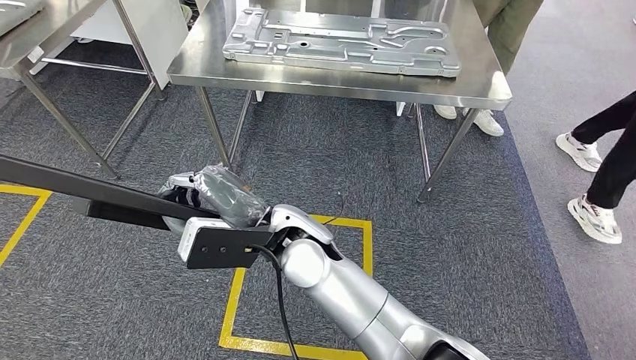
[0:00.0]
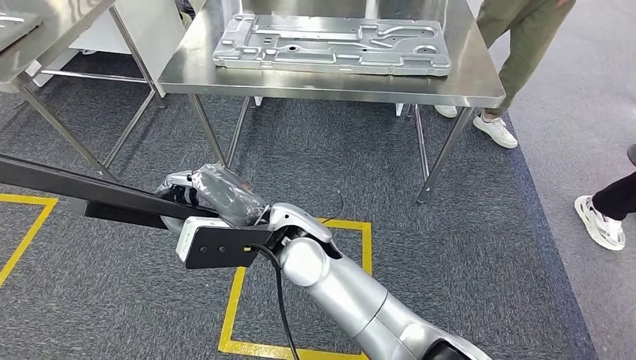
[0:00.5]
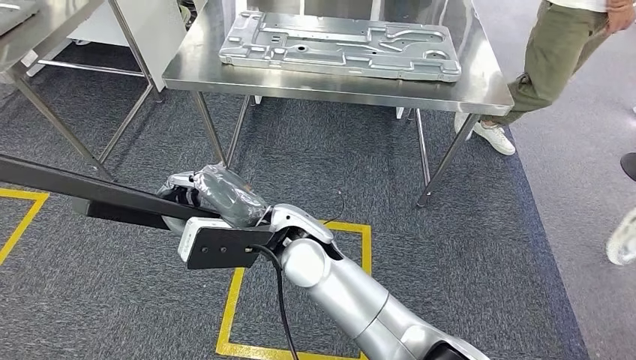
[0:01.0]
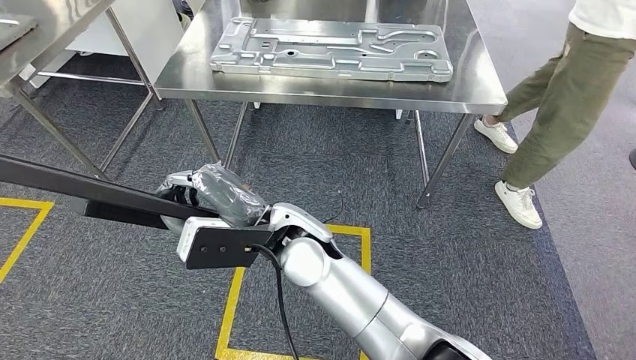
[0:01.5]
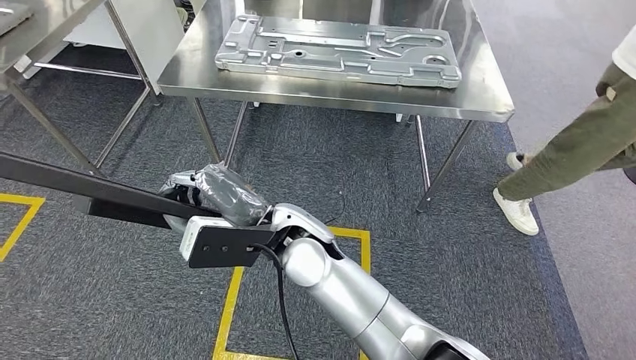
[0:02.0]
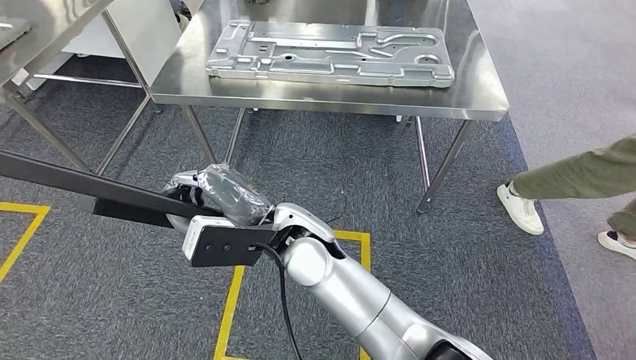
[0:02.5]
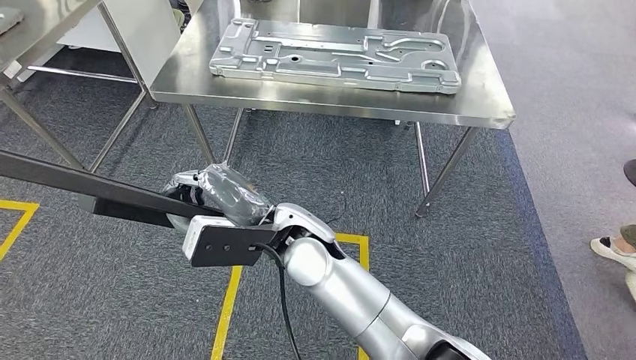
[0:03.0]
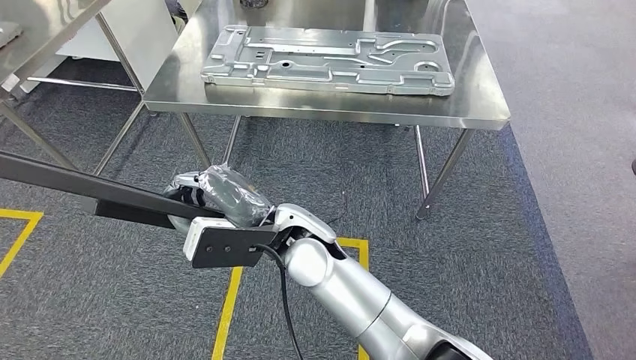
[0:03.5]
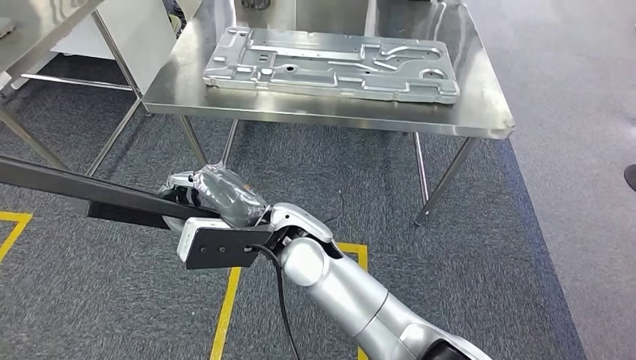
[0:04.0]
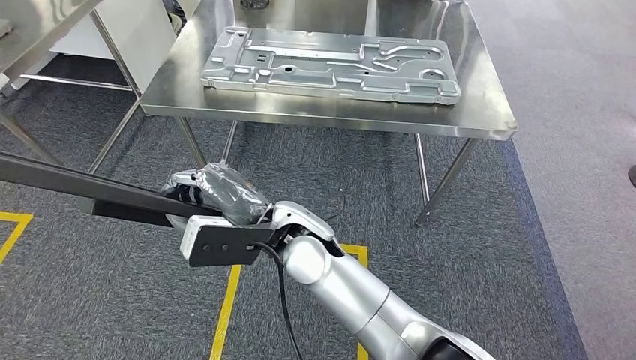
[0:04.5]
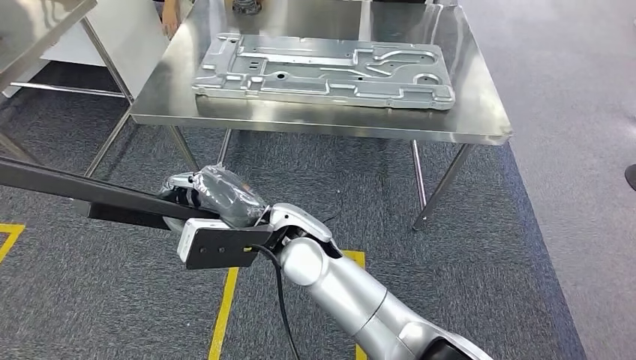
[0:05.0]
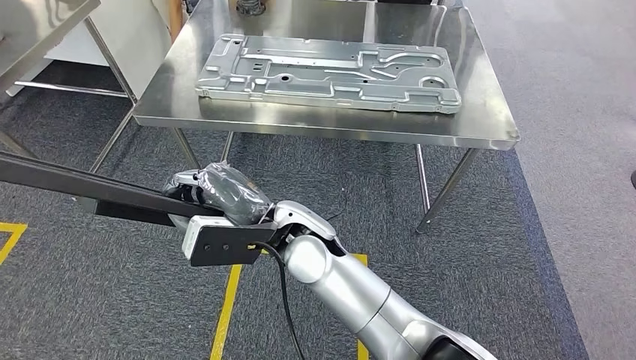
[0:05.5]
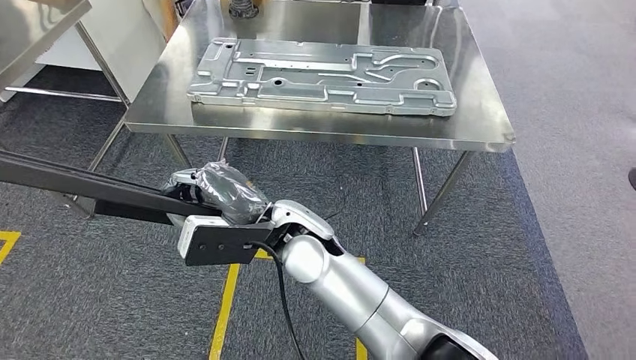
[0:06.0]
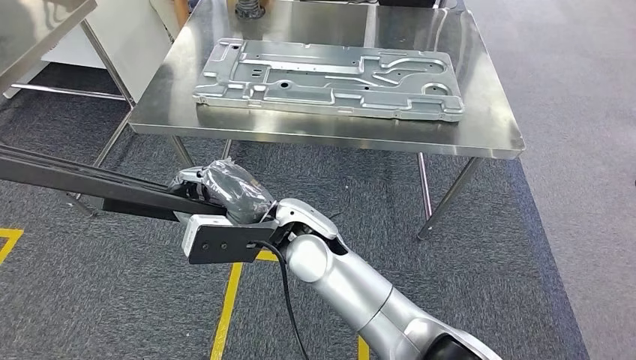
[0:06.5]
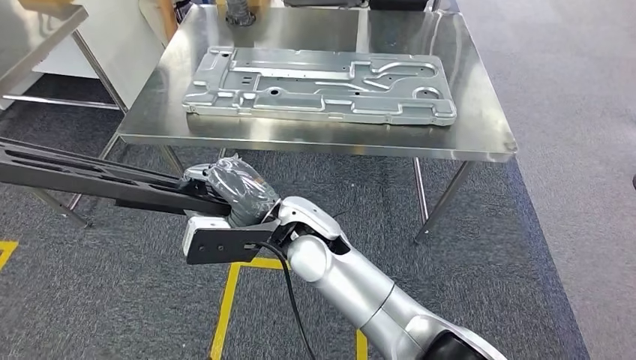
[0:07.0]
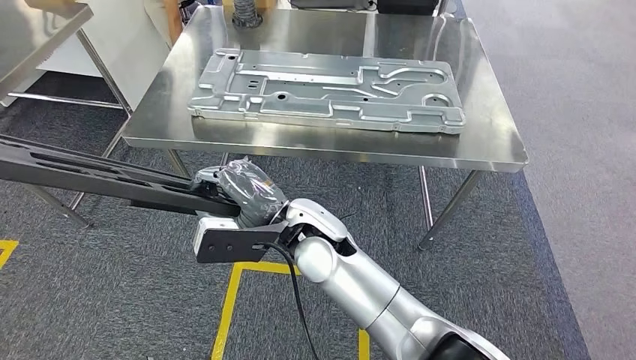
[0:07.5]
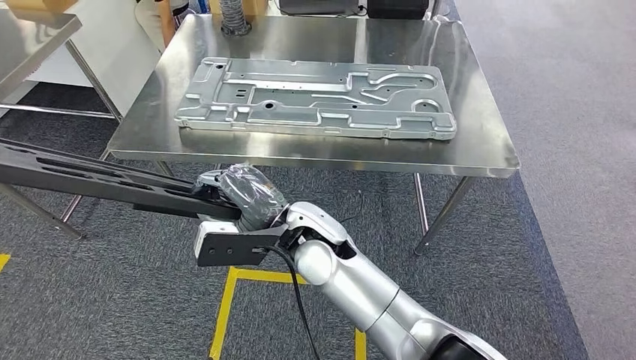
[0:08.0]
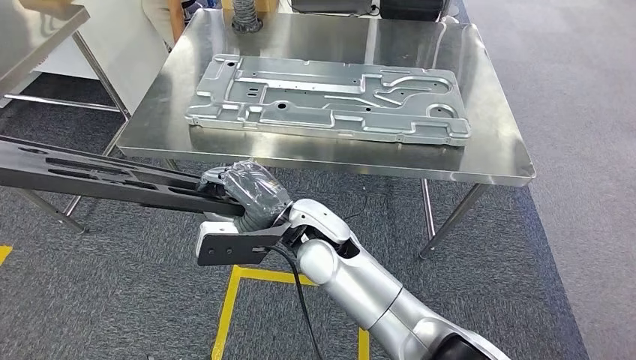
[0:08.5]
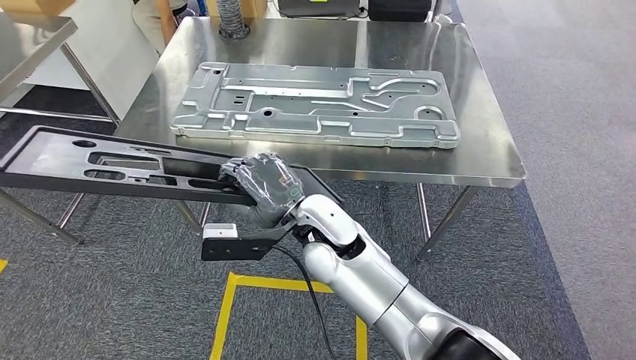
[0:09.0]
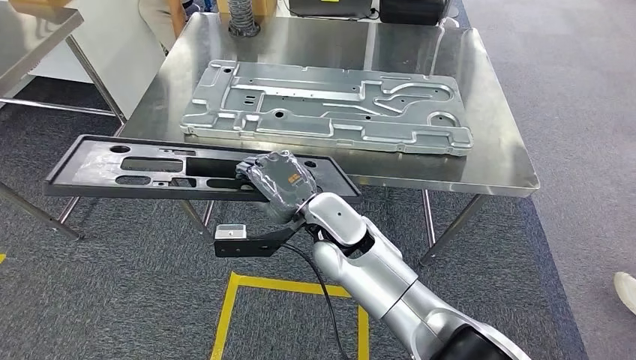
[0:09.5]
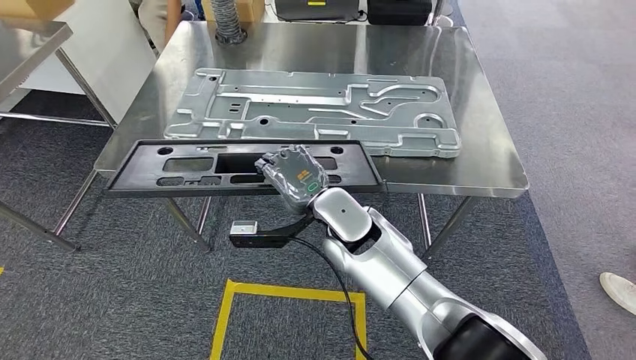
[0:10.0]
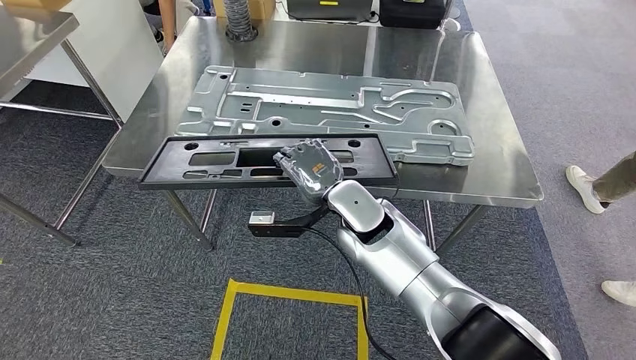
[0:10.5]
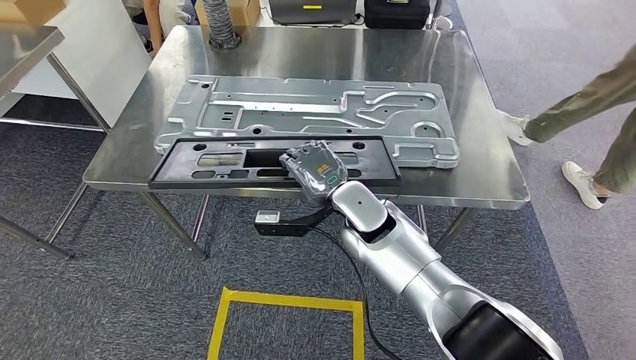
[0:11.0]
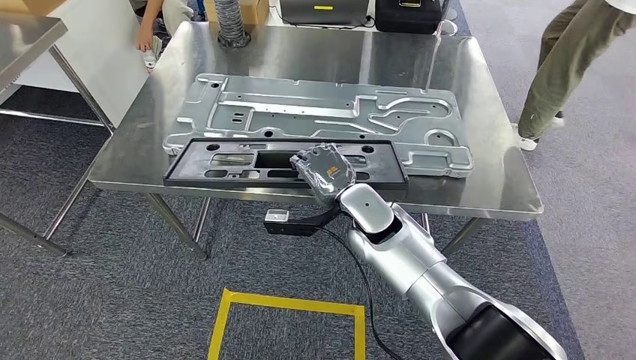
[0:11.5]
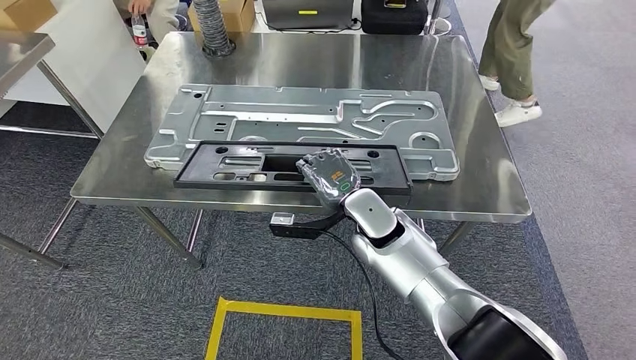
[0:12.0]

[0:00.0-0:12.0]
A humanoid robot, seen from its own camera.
Step, 0:00.0 to 0:07.0: Move the large material to the workbench.

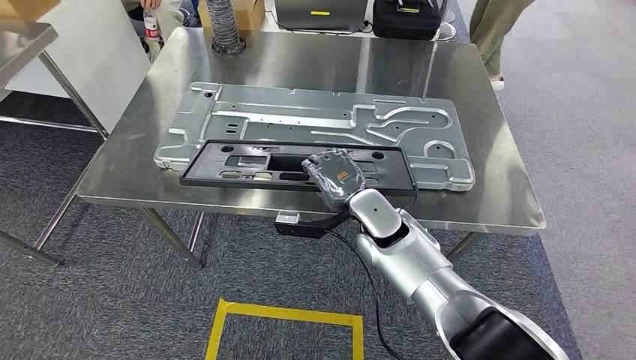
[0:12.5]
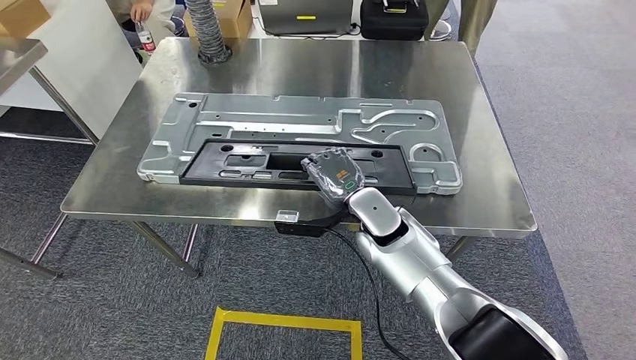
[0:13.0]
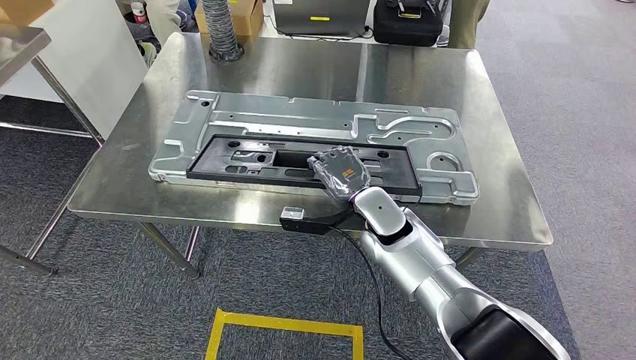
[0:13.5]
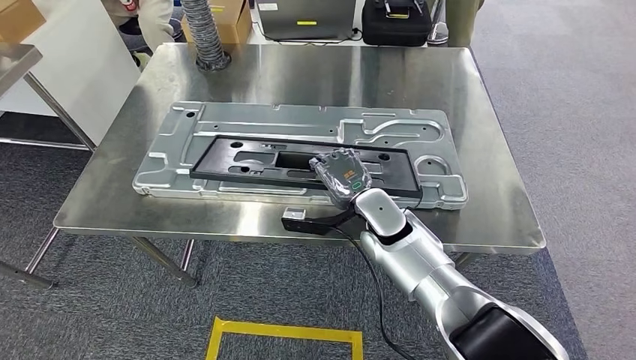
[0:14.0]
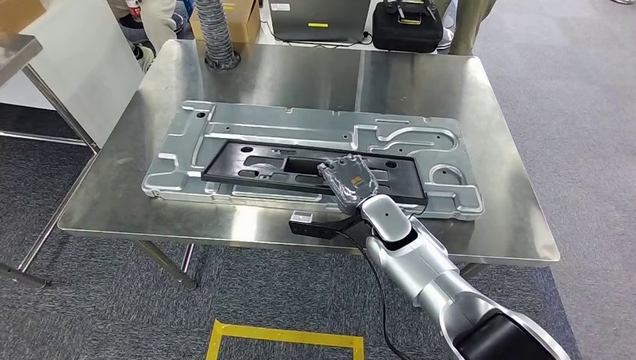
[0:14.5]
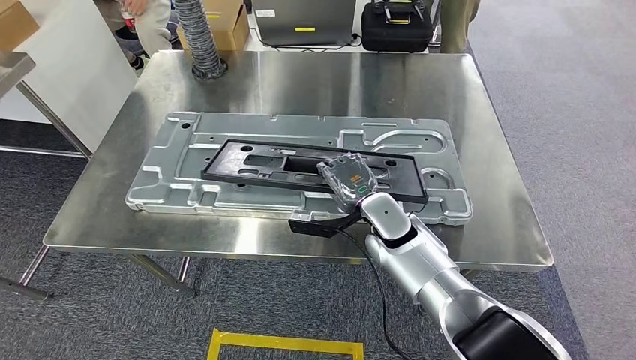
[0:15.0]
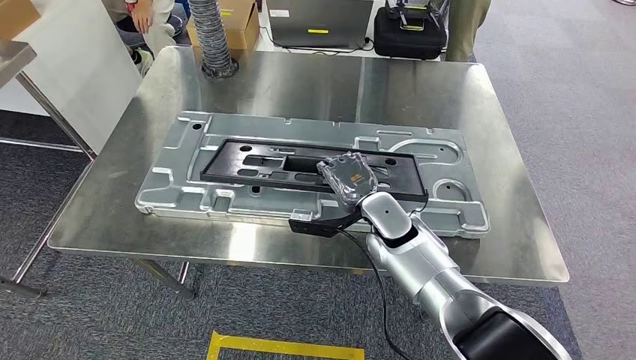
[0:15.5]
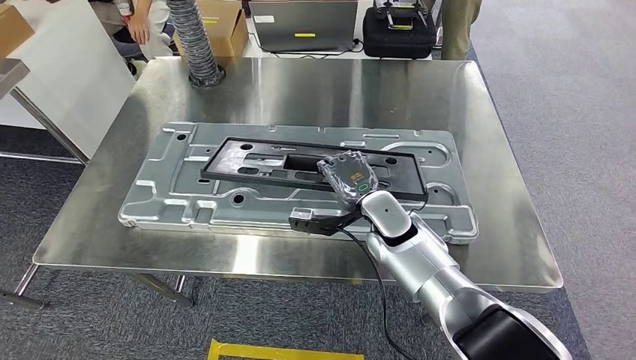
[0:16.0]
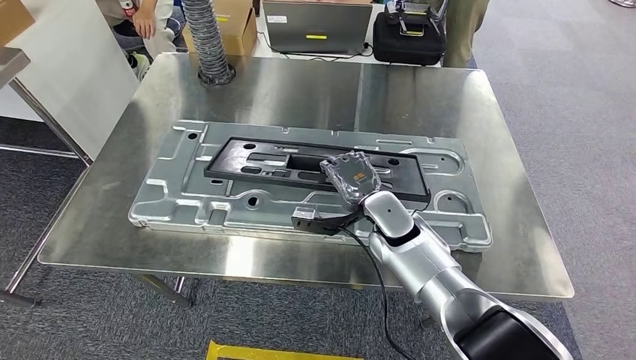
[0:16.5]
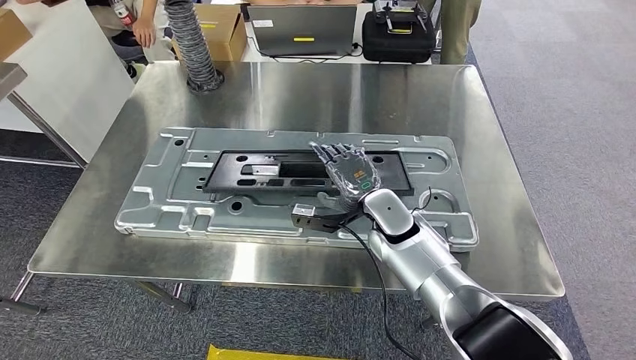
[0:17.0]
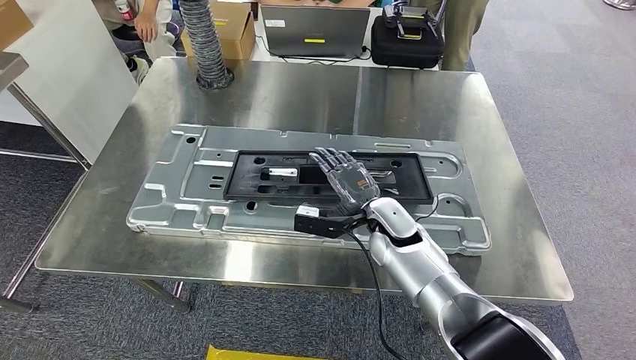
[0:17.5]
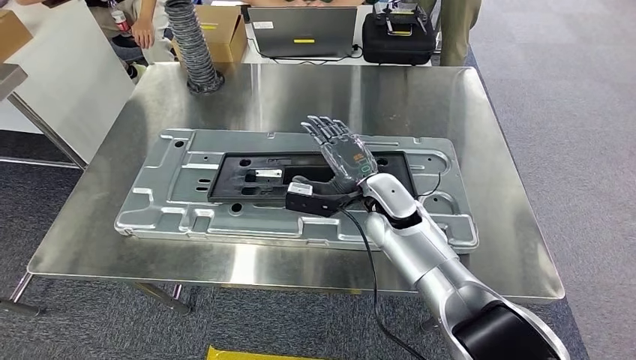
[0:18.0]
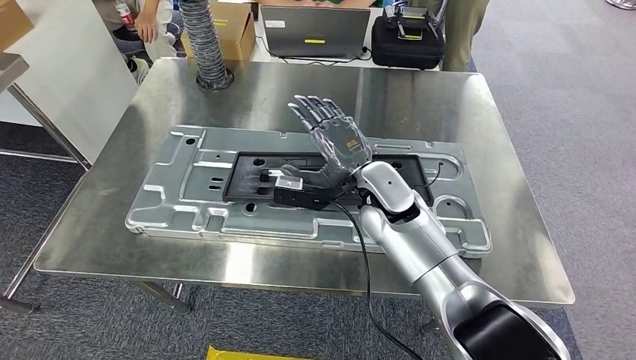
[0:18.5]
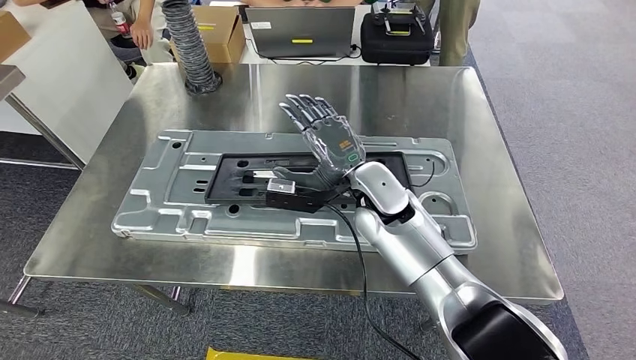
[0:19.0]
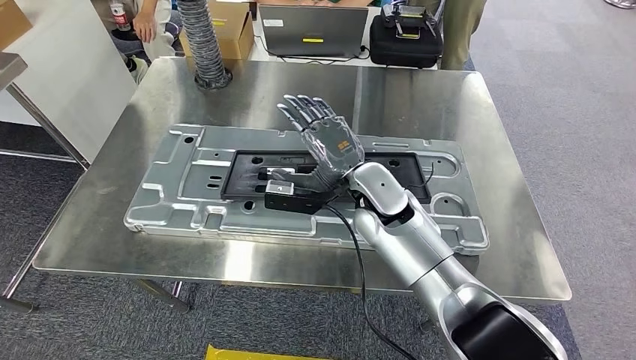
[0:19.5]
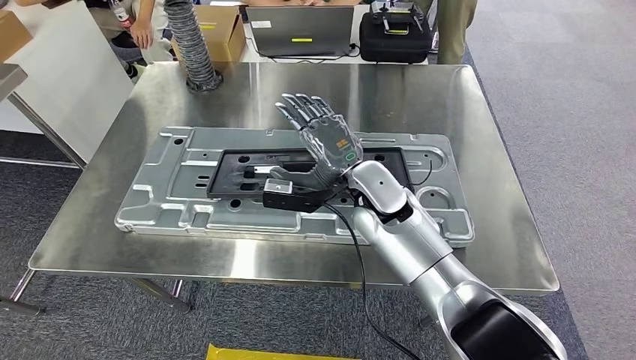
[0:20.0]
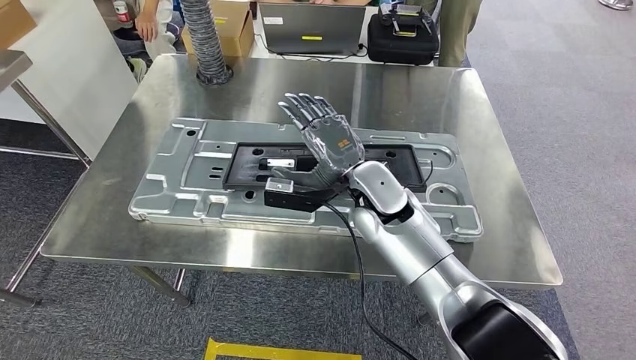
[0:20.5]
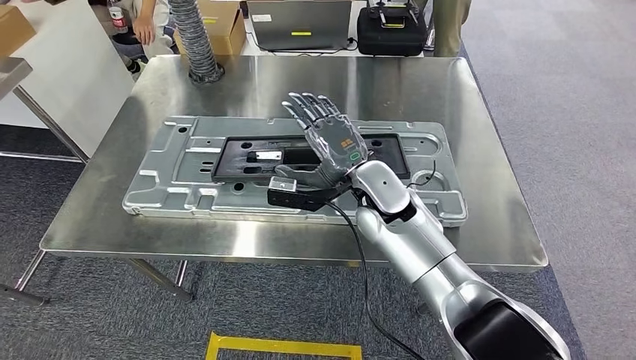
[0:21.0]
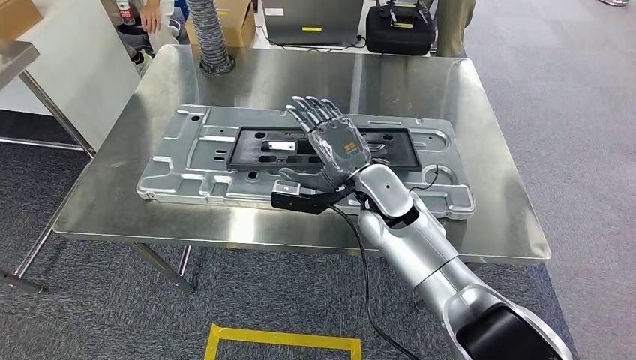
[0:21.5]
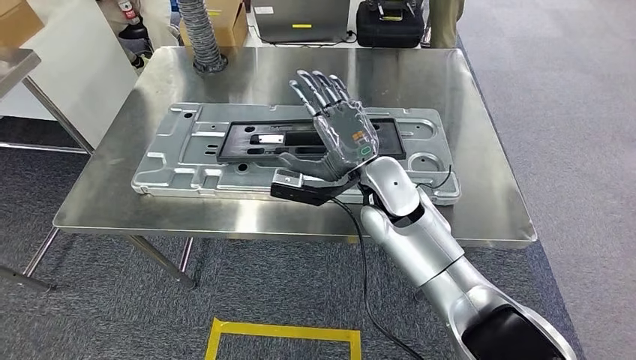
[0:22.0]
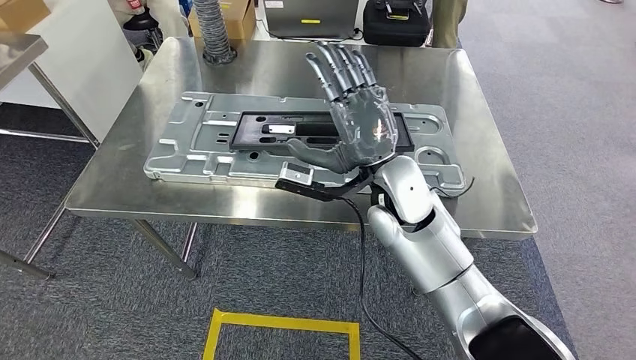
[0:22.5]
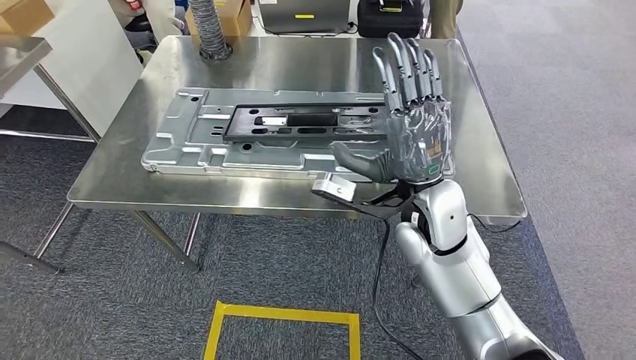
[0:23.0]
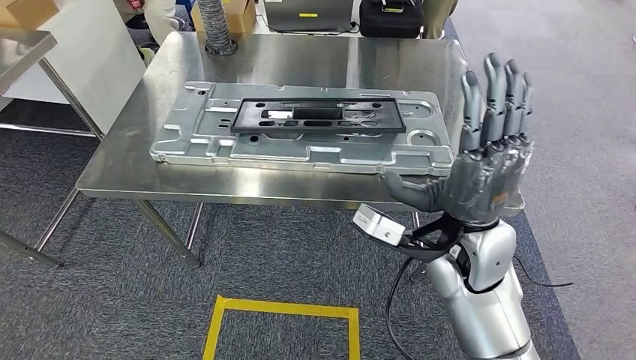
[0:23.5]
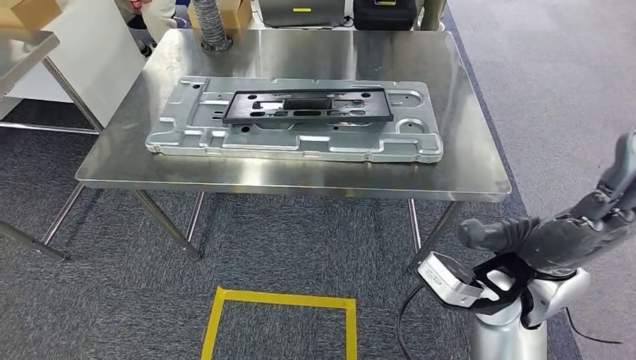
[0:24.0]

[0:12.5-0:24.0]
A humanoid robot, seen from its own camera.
Step, 0:12.5 to 0:22.0: Insert the large material into the corresponding slot on the workbench.
